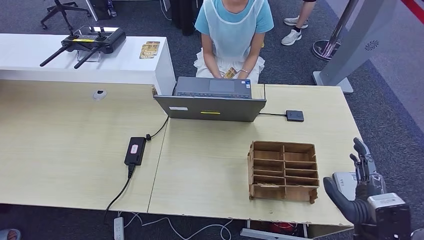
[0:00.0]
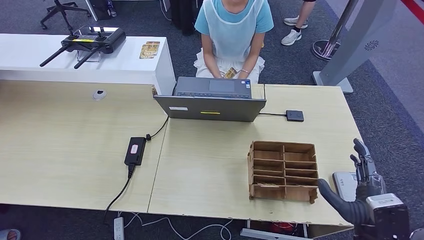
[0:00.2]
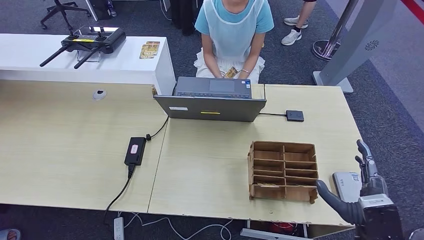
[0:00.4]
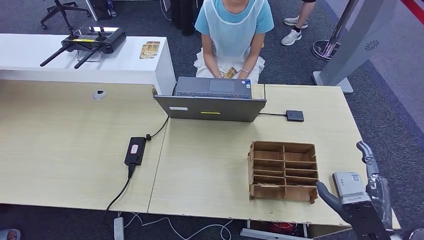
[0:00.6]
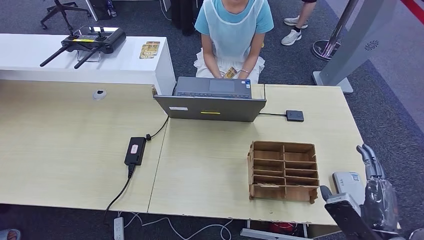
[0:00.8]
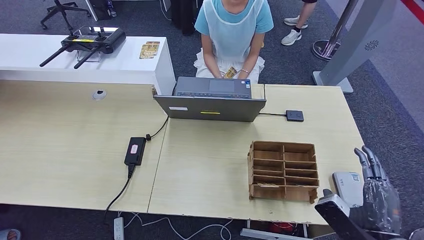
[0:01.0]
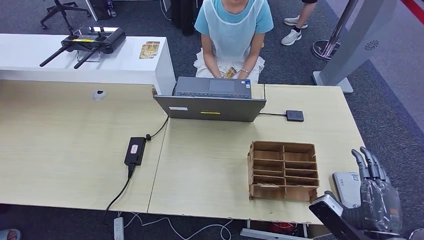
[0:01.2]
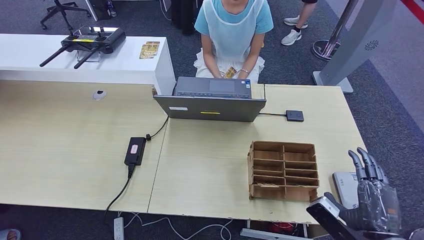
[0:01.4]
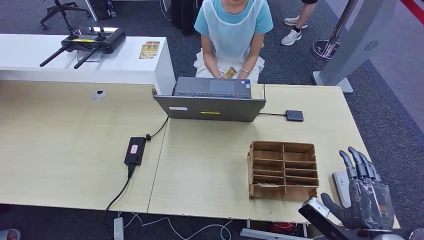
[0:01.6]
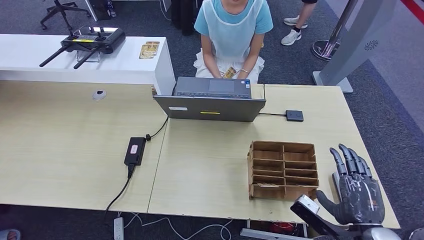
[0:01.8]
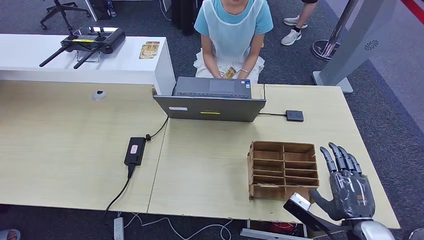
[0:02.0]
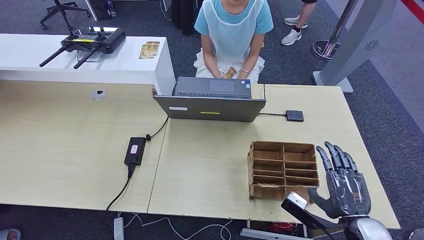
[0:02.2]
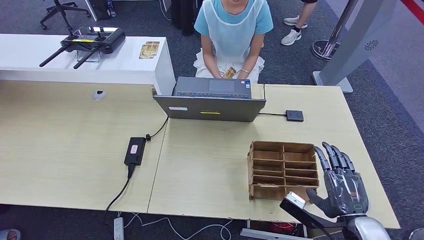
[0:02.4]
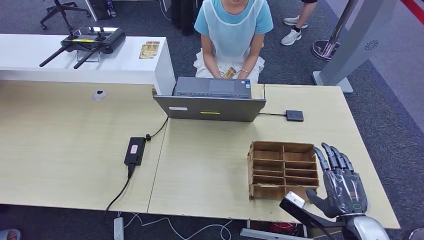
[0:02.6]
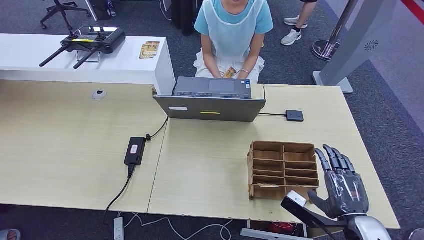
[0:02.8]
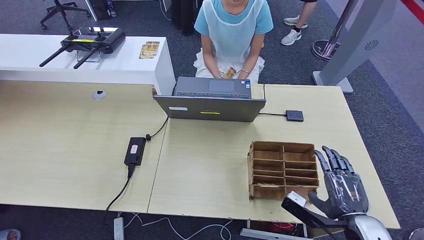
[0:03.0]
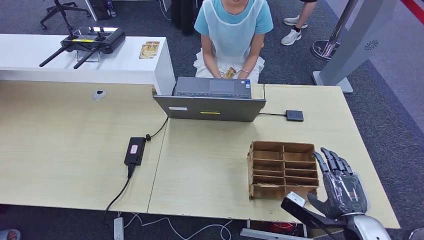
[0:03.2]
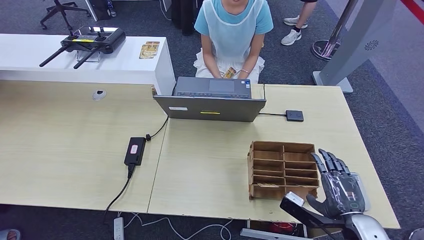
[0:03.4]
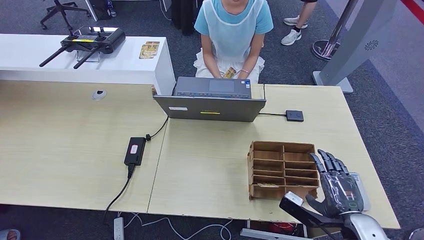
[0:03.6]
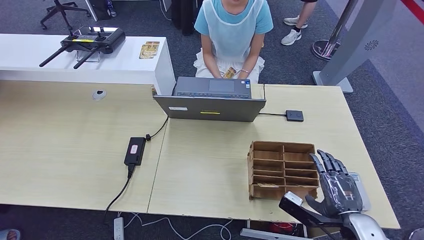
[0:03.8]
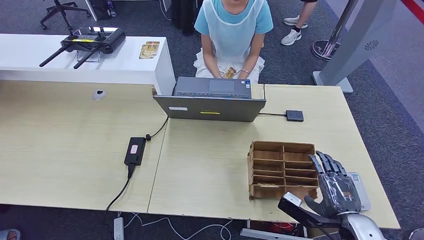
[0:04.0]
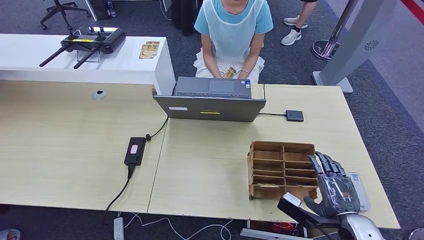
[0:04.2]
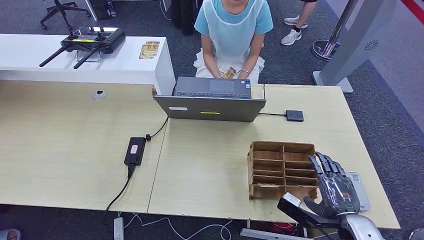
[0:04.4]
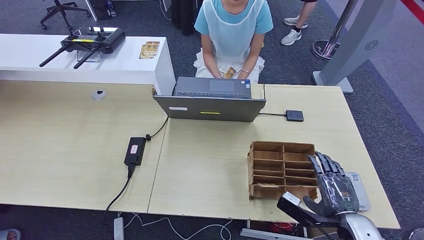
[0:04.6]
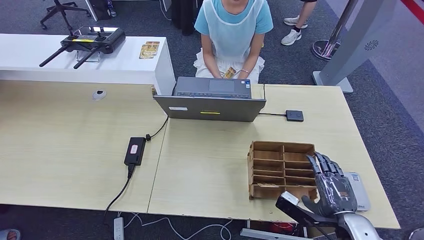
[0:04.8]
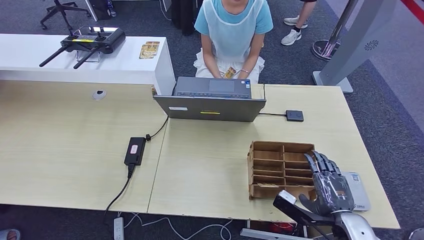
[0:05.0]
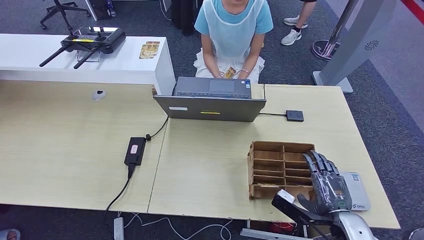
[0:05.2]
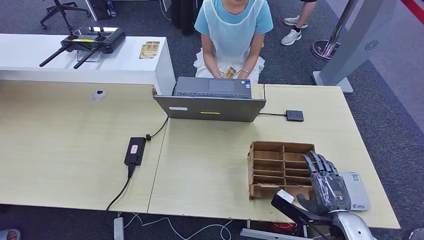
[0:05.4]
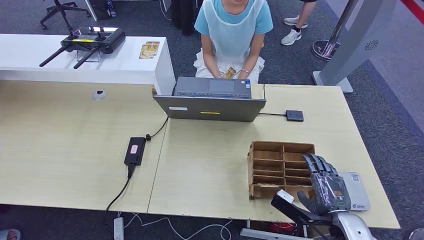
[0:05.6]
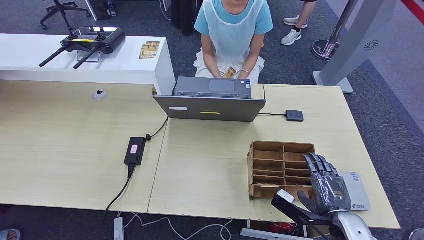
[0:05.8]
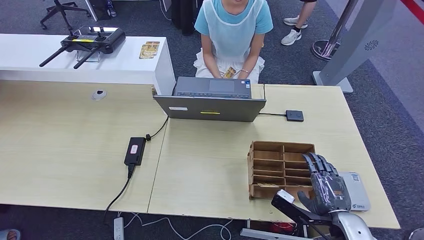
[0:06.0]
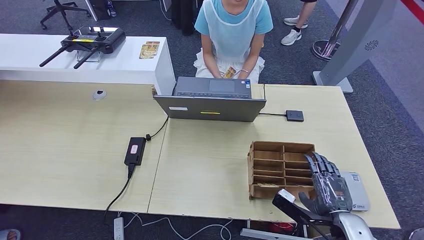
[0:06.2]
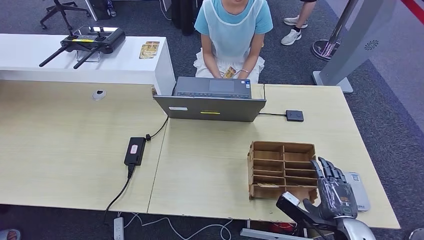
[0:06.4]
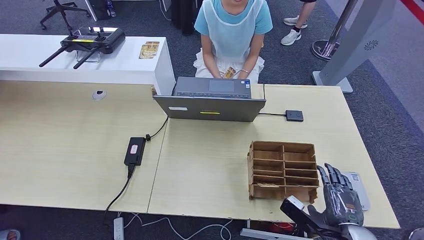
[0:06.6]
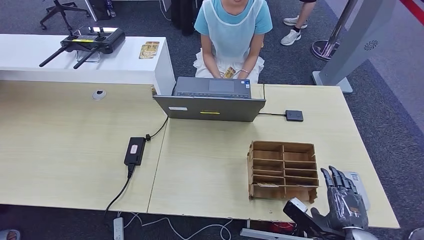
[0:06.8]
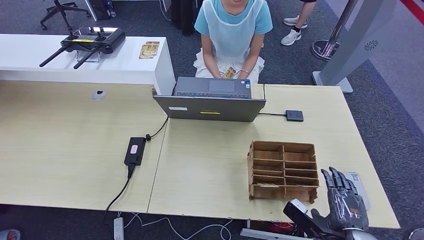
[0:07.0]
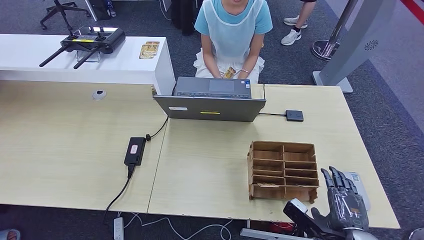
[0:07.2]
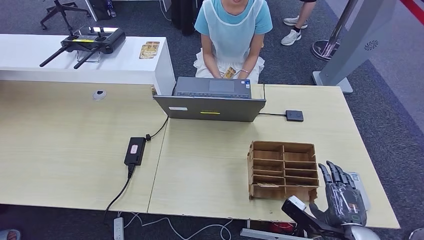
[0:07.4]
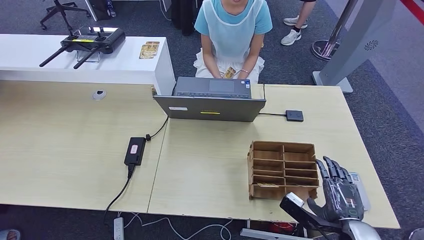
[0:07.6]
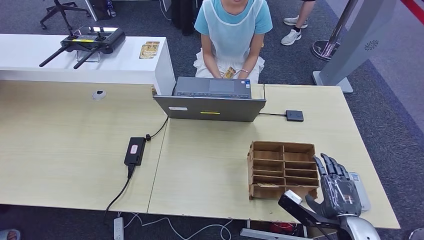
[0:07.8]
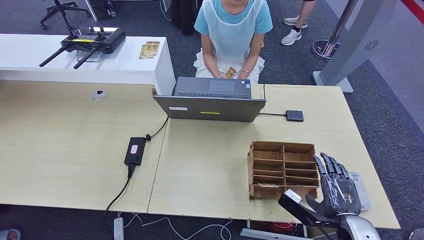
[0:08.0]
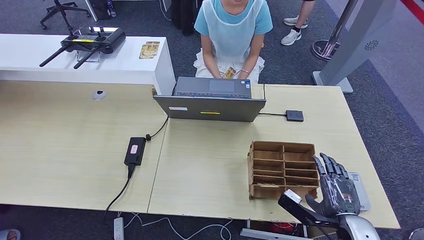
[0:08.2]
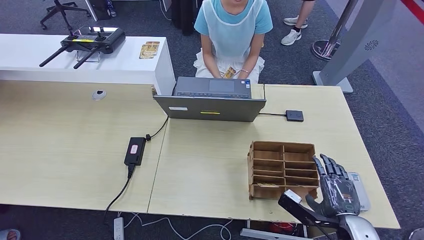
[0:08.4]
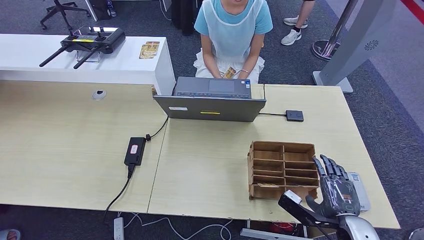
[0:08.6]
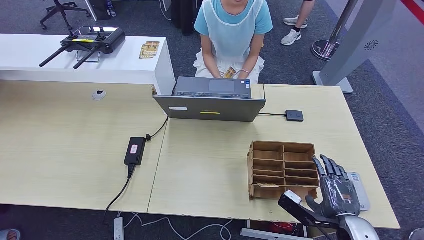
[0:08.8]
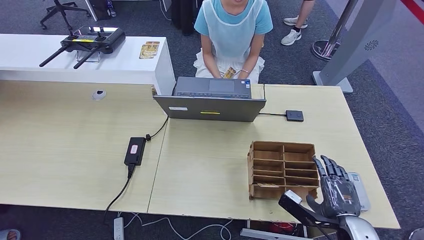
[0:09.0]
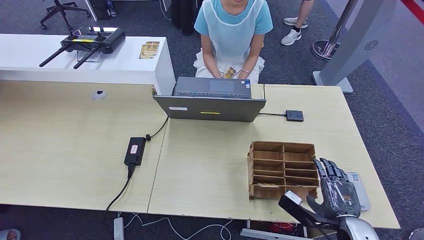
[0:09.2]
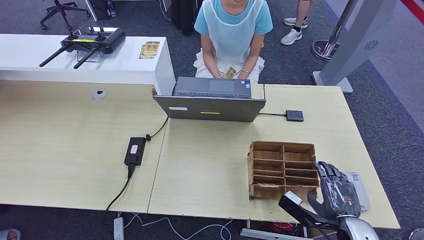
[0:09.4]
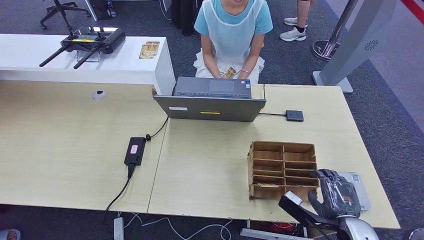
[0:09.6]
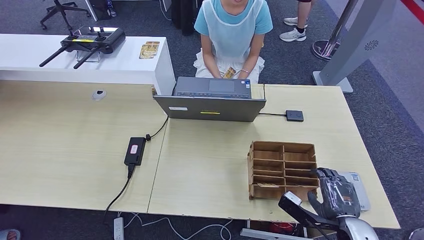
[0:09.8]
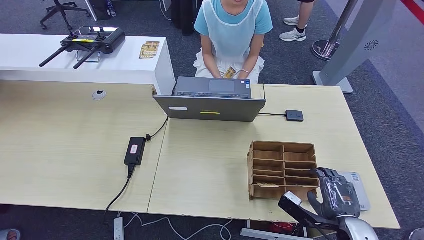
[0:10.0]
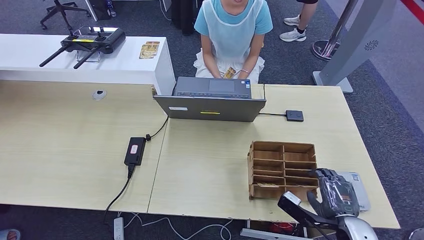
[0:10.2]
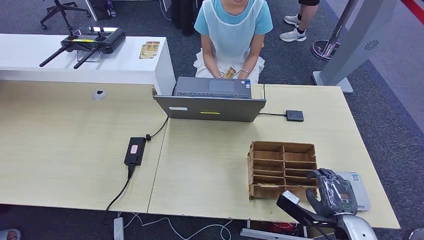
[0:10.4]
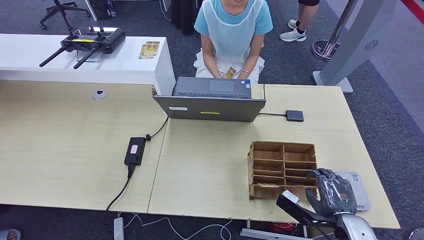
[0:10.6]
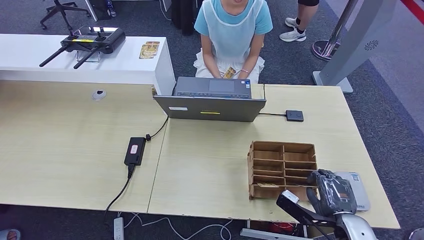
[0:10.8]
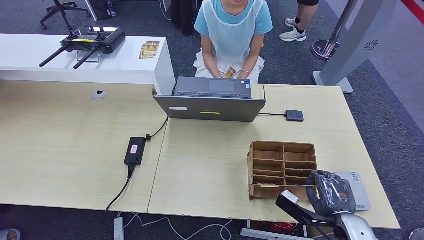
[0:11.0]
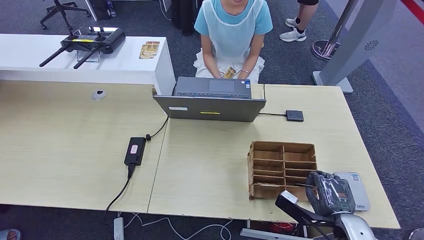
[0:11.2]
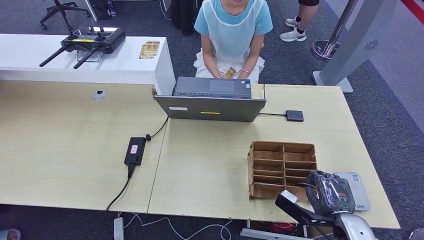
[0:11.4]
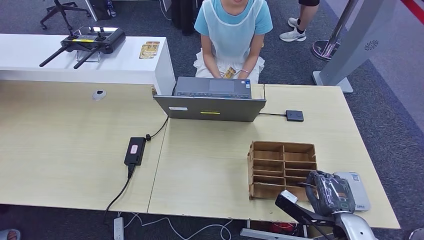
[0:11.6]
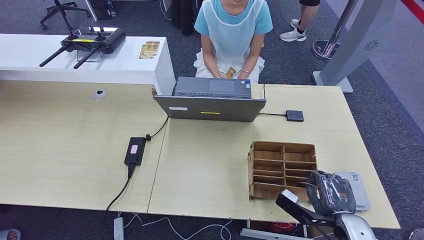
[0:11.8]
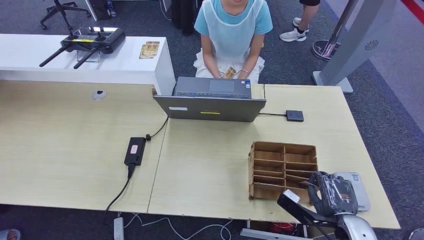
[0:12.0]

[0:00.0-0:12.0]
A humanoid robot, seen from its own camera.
0:01.6 to 0:04.4: The hands make only small movements.
0:04.4 to 0:07.6: The hands make only small movements.
0:07.6 to 0:09.0: The two hands keep their place.
0:09.0 to 0:12.0: Neither hand changes place.

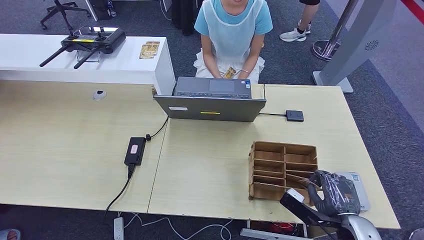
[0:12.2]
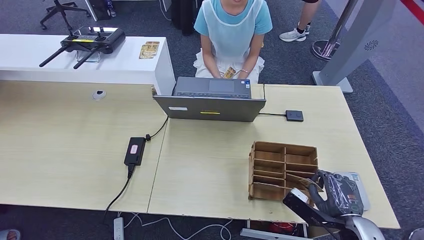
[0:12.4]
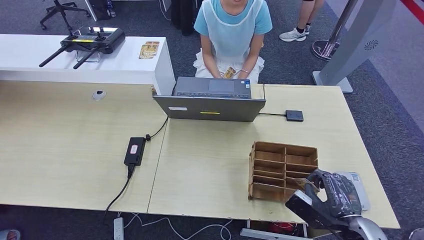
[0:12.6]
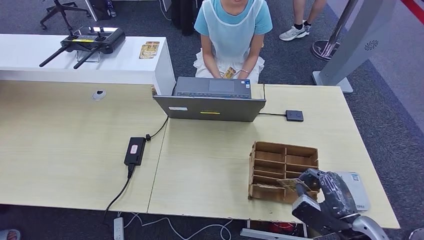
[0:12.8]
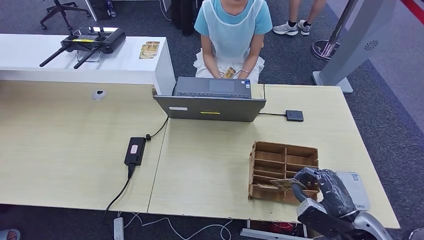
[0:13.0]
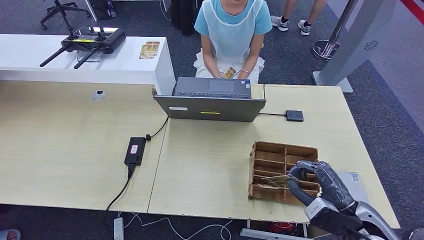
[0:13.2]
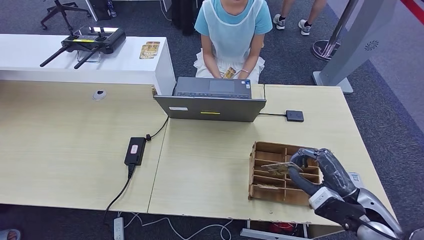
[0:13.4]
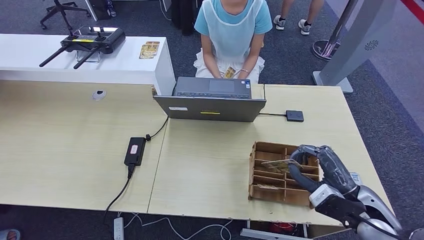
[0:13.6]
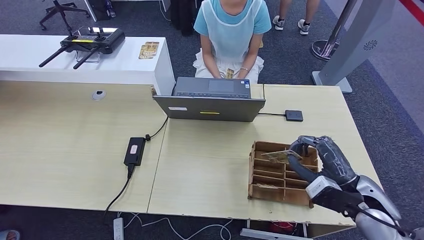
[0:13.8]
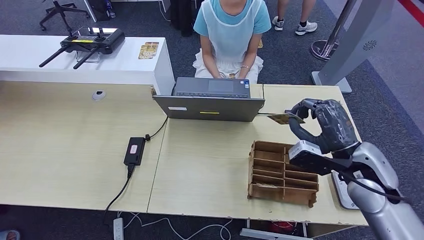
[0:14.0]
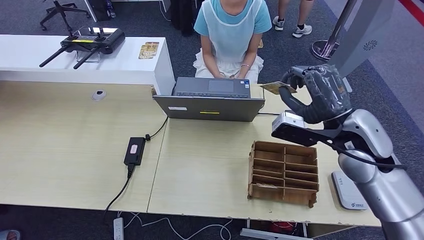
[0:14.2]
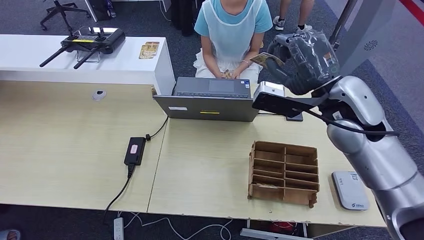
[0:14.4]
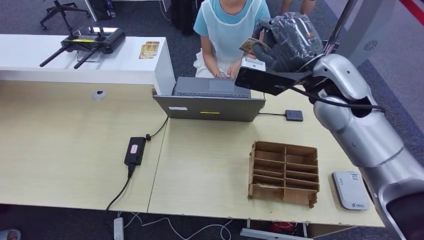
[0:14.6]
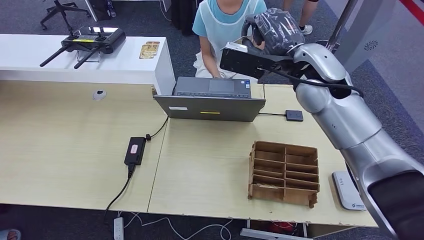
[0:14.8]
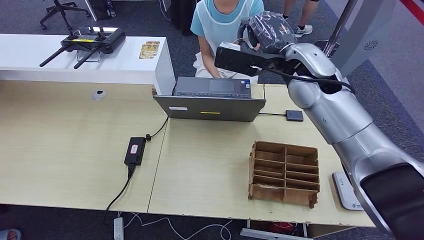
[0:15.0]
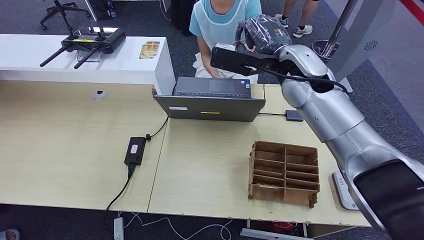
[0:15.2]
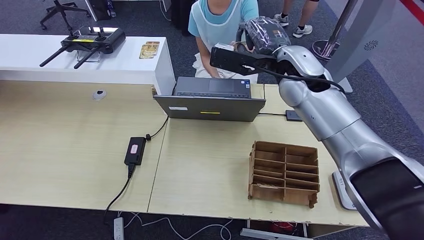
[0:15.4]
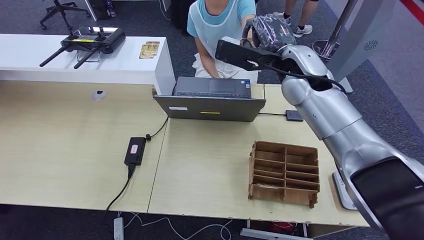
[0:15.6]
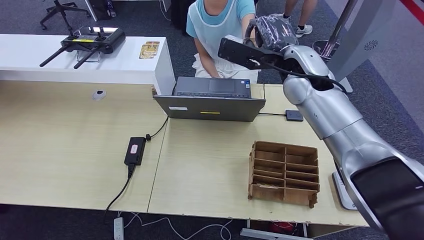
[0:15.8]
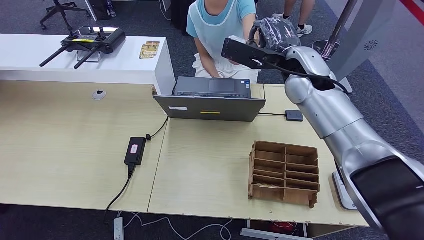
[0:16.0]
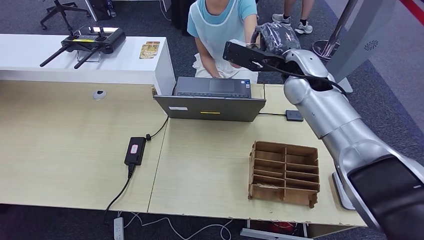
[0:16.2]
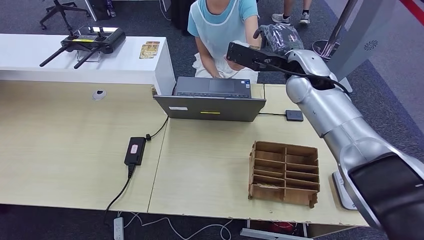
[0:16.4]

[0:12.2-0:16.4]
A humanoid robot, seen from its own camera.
Step, 0:13.2 to 0:16.4: Hand the room key to the person.
0:12.2 to 0:13.6: The right hand goes roughly 5 cm upward.
0:13.6 to 0:15.0: The right hand is displaced forward, upward and to the left by about 35 cm.
0:15.0 to 0:16.4: The right hand changes place by roughly 5 cm.
